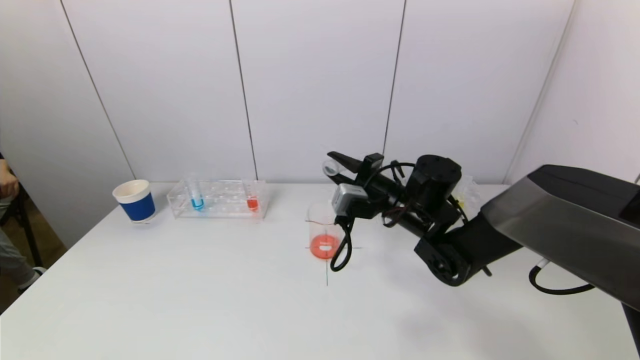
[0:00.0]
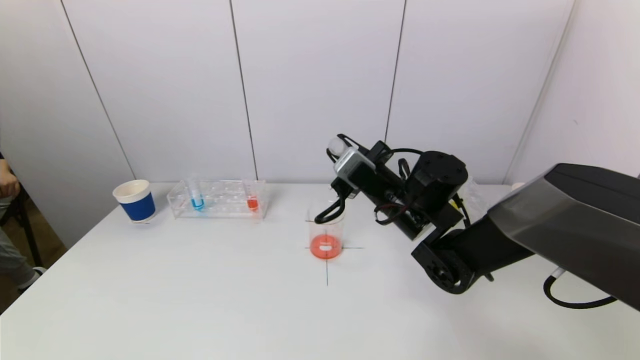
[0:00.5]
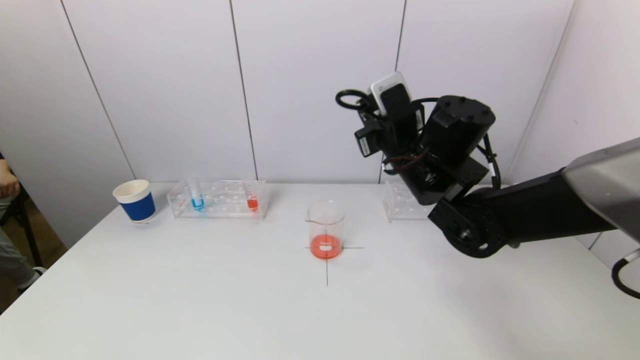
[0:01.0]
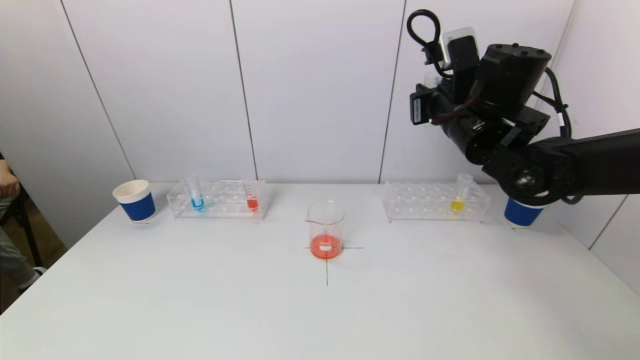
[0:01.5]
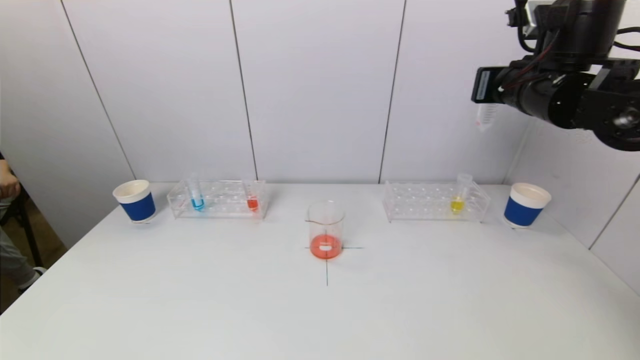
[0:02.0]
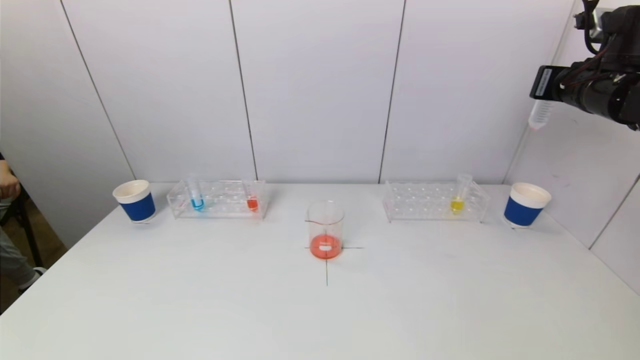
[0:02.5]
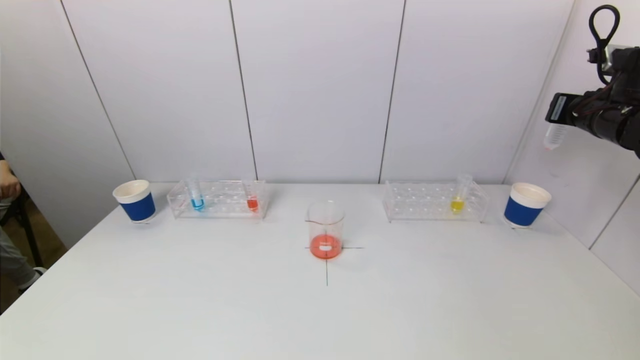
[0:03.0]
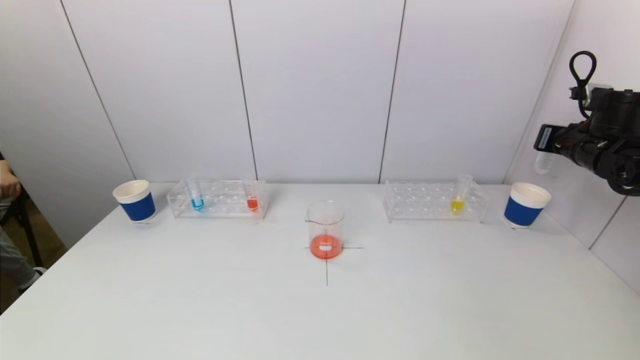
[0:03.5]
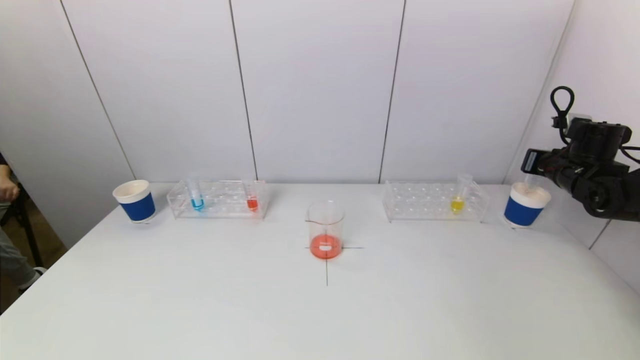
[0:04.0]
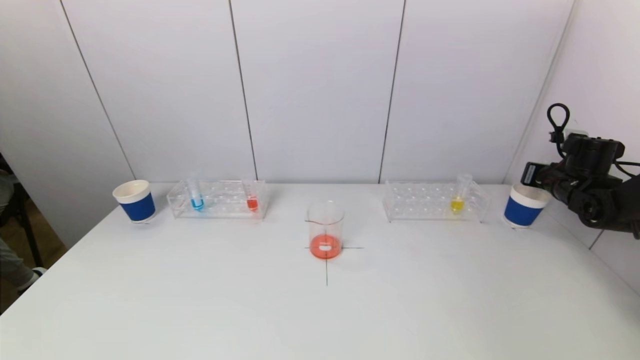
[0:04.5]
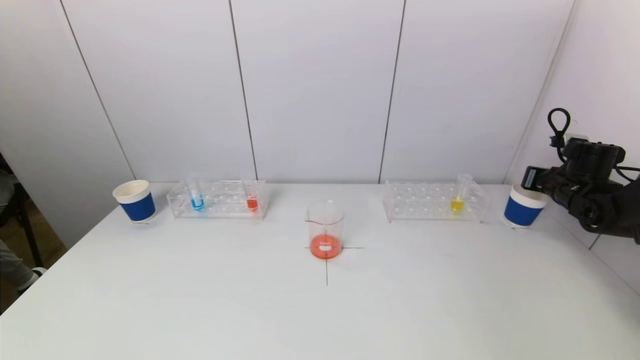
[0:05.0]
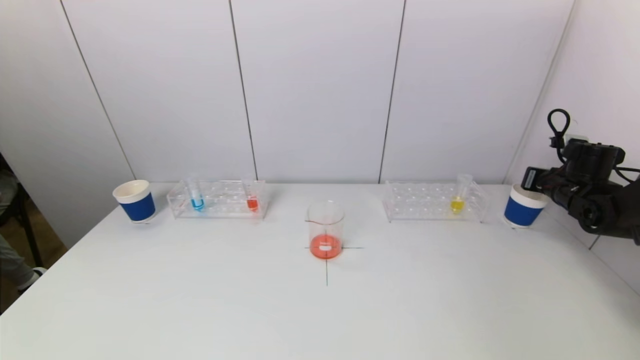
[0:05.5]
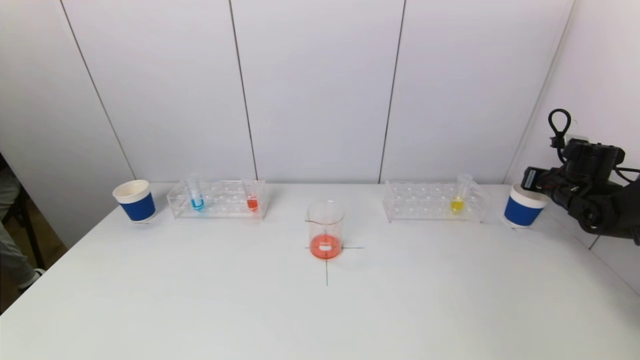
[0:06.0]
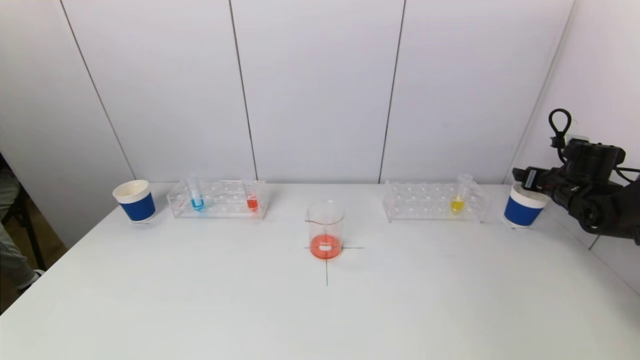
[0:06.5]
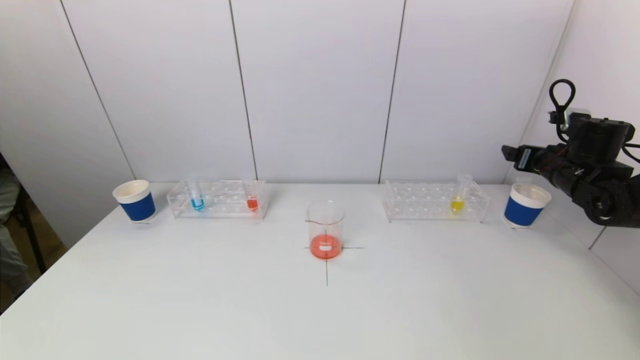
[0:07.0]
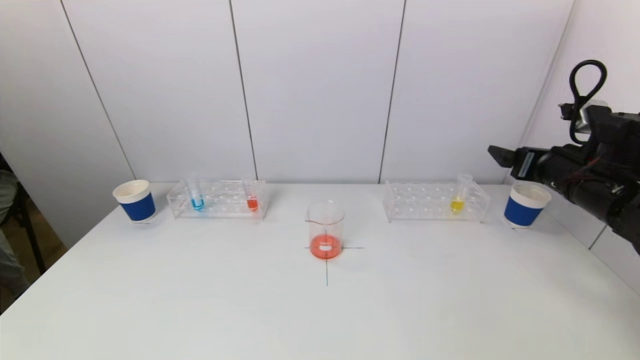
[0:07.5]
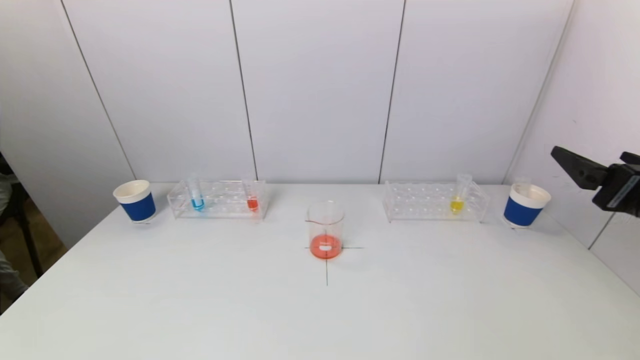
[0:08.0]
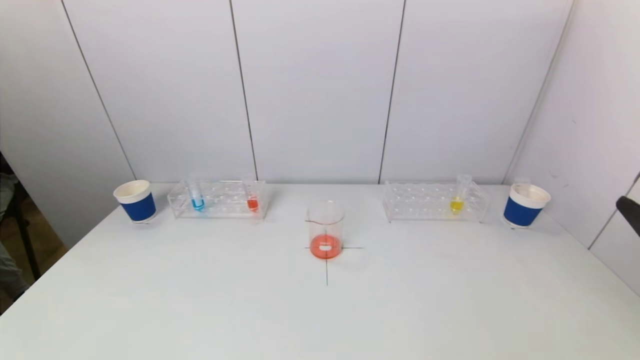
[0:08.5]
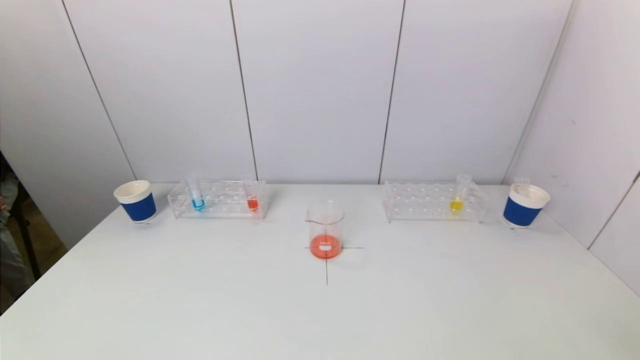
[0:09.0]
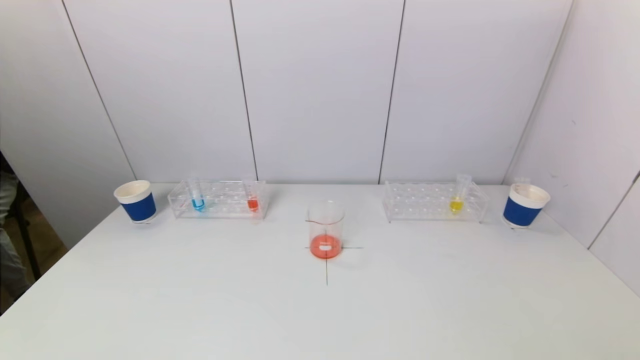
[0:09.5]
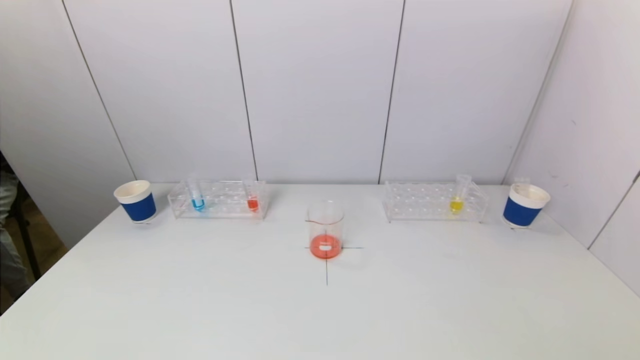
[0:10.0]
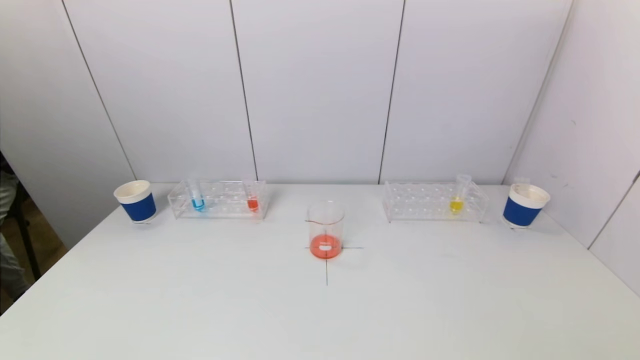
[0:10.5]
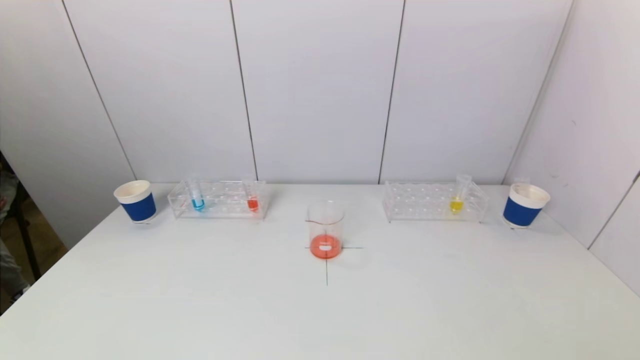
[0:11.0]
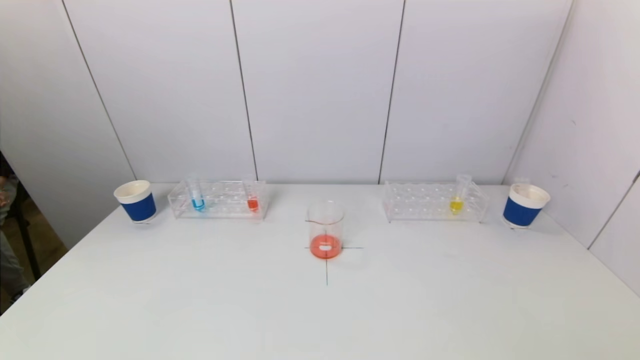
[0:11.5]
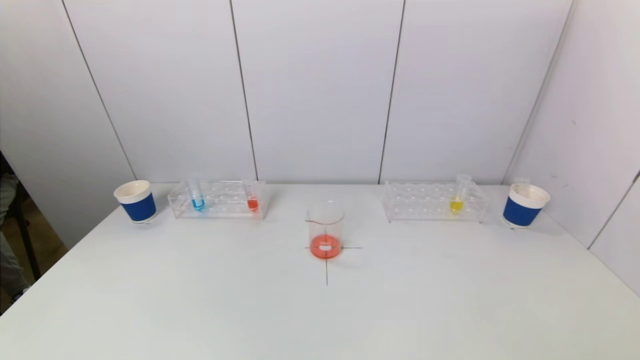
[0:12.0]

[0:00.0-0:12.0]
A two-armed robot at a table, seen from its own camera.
Task of the whole recording: pick up a test tube with pigment on left test tube rack and a test tube with pigment on right test tube rack by grippers and pour them into the beaker.
Step, 0:00.0 to 0:06.0: Place the test tube into the paper cup with the right gripper.
0:00.0 to 0:02.0: The right gripper travels upward and to the right by approximately 25 cm.
0:02.0 to 0:04.0: The right gripper goes roughly 25 cm to the right and downward.
0:04.0 to 0:06.0: The grippers move only a little.
0:06.0 to 0:08.0: The right gripper goes about 30 cm backward, upward and to the left, and opens up.
0:08.0 to 0:10.0: The right gripper goes roughly 25 cm backward and downward.

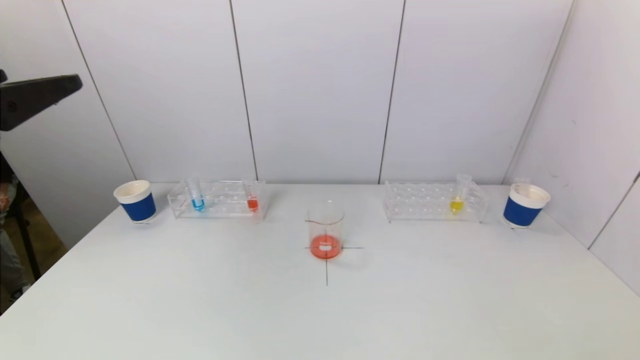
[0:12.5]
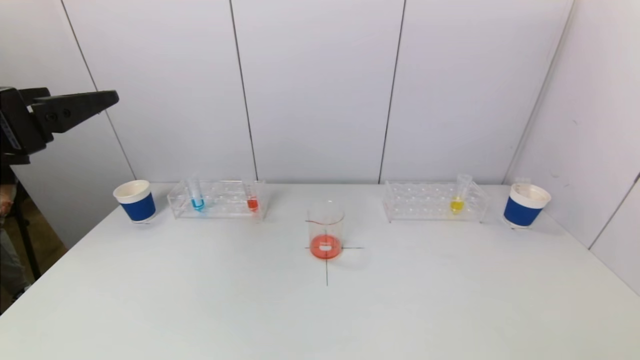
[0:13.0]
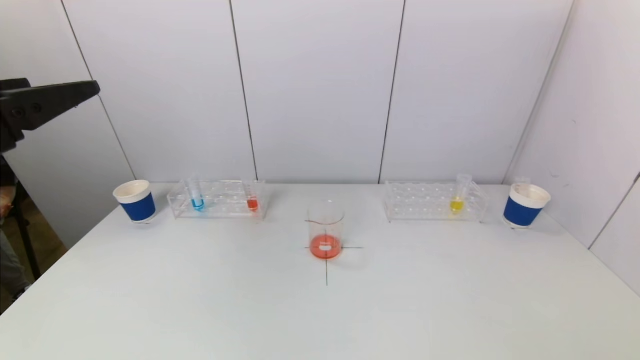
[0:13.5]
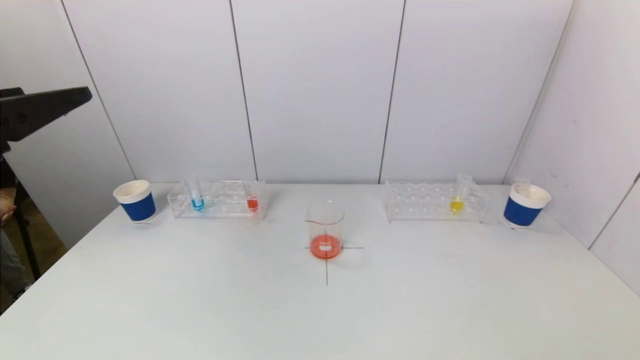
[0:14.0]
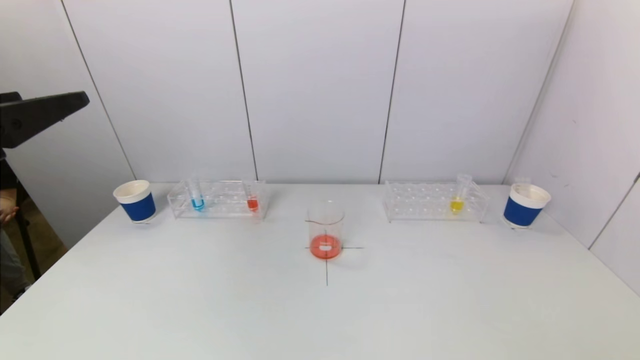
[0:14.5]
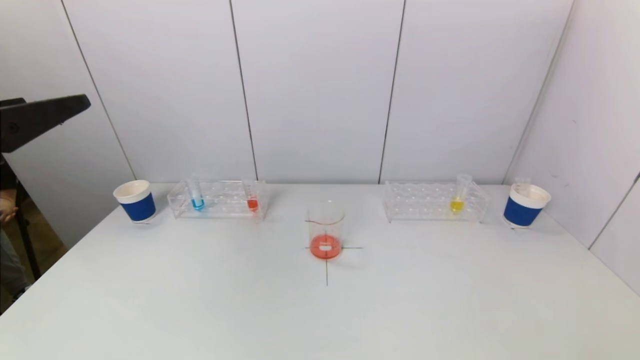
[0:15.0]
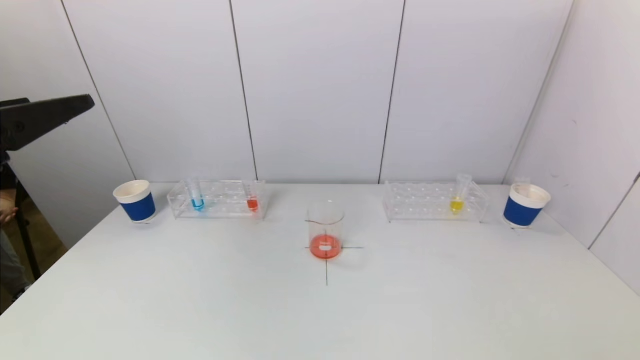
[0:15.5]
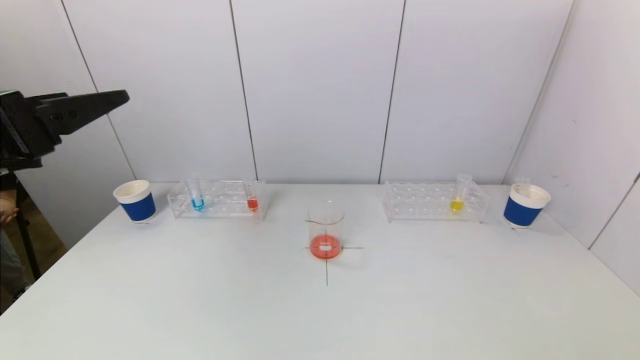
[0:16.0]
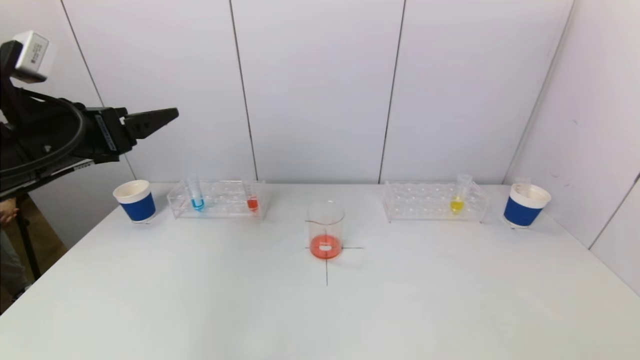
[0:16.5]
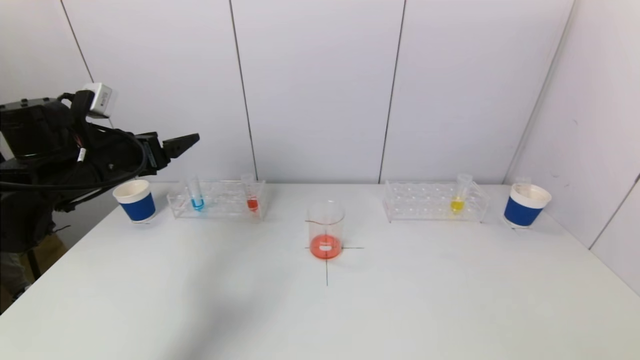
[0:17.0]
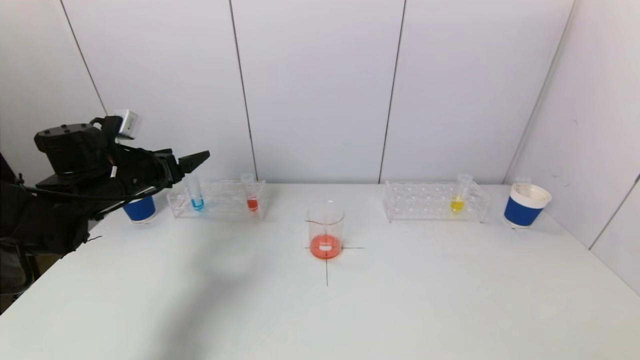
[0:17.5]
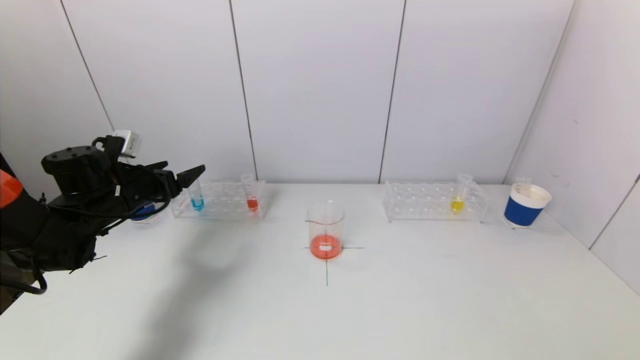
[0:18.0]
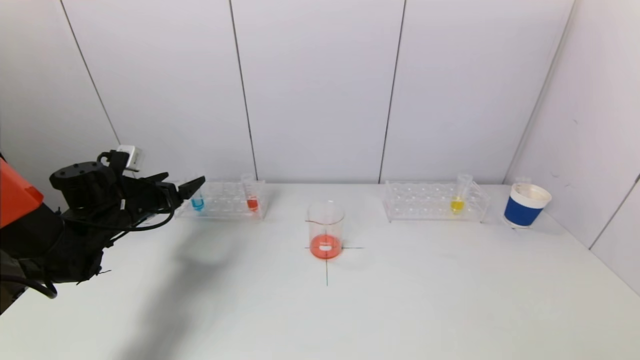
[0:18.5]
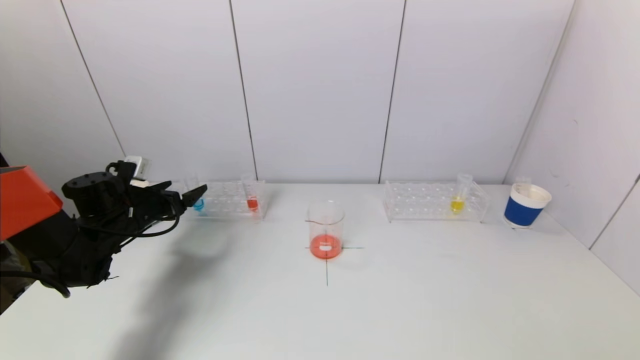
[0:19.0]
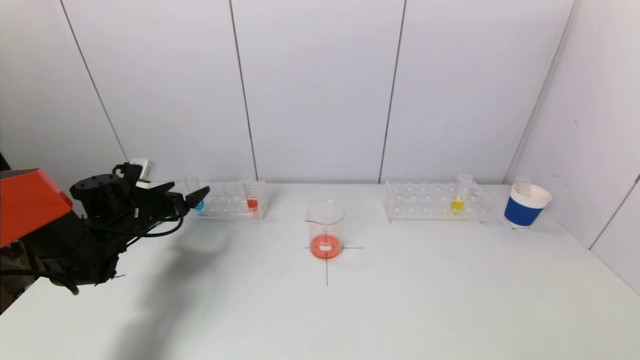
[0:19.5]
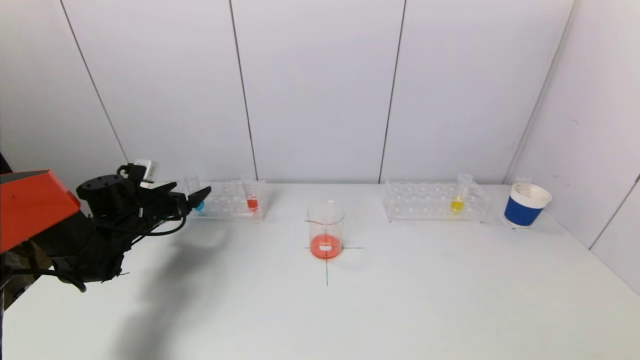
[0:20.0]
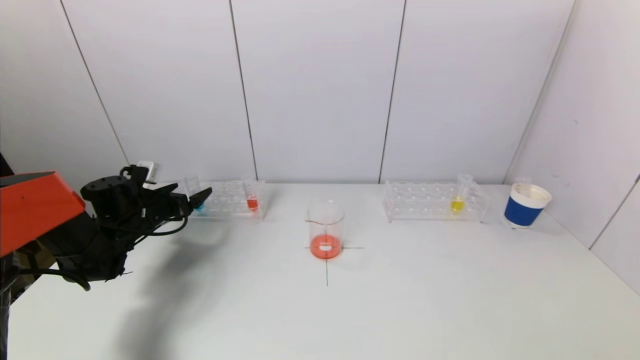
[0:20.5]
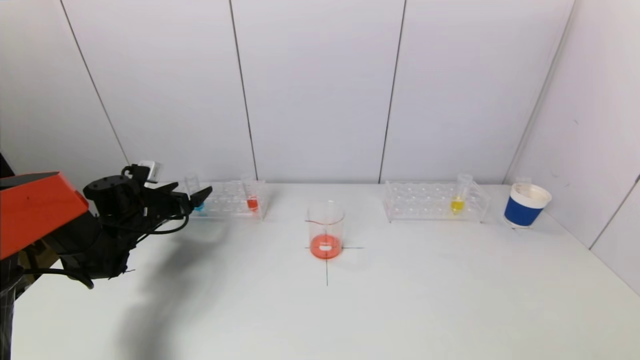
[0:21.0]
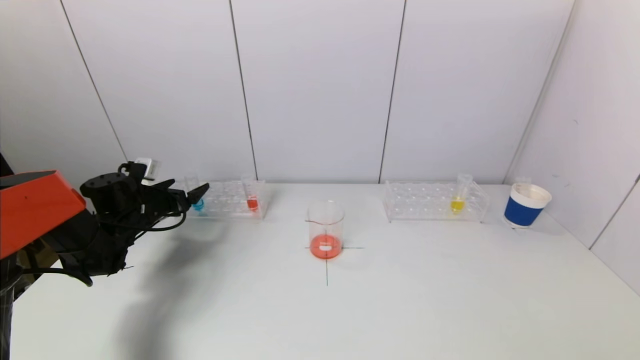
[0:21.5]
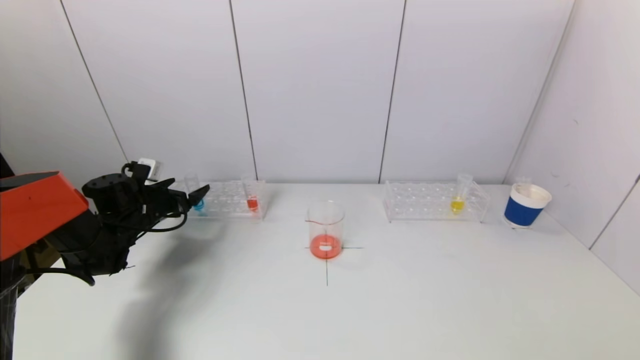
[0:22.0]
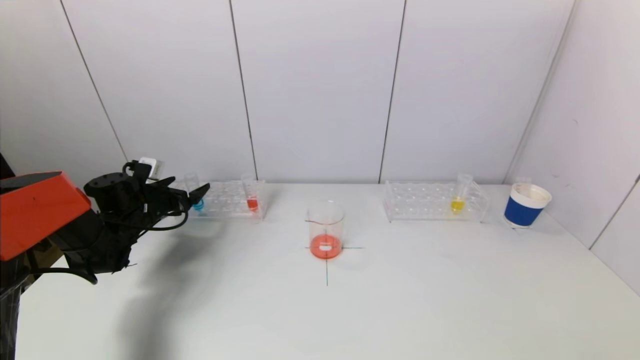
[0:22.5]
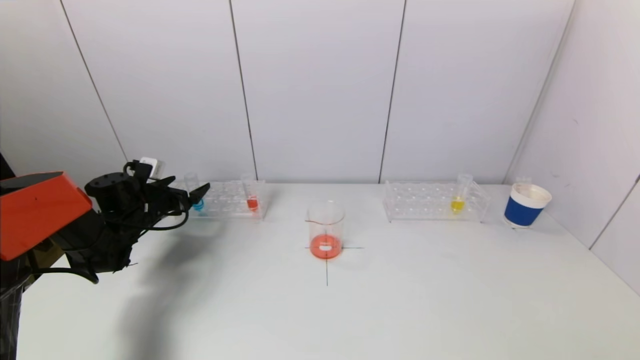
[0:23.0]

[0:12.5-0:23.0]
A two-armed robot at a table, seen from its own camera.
Task of the whole recording: pick up a test tube with pigment on left test tube rack and a test tube with pigment on right test tube rack by grippers and pour them into the beaker.
0:12.5 to 0:14.5: The grippers stay close to where they were, moving slightly.
0:14.5 to 0:16.5: The left gripper heads forward, covering about 10 cm.
0:16.5 to 0:19.0: The left gripper is displaced downward and forward by approximately 25 cm.
0:19.0 to 0:23.0: There are only small adjustments of the grippers.
